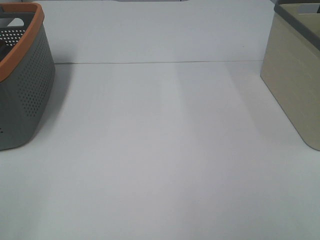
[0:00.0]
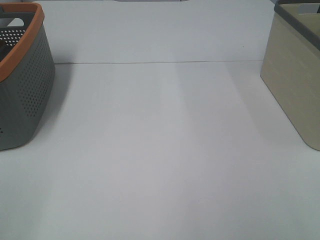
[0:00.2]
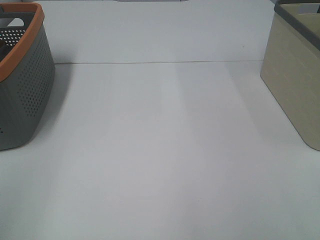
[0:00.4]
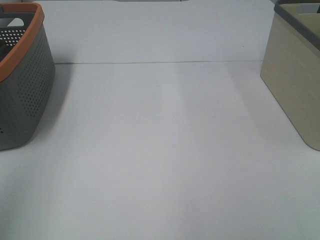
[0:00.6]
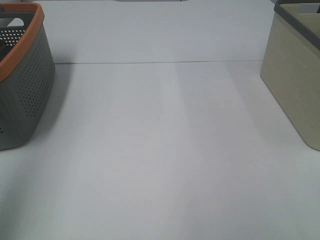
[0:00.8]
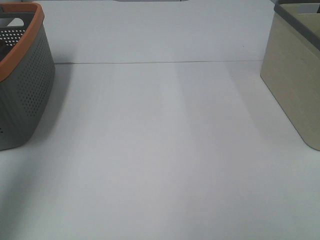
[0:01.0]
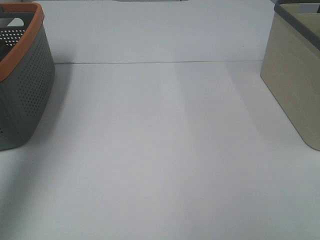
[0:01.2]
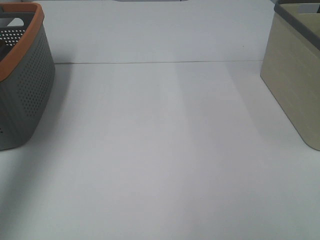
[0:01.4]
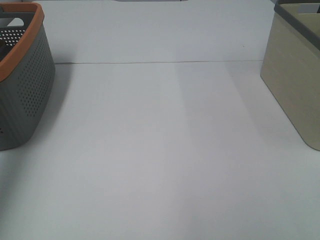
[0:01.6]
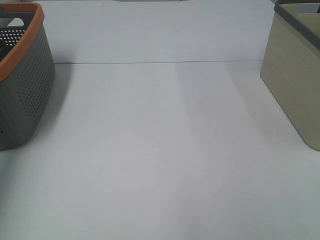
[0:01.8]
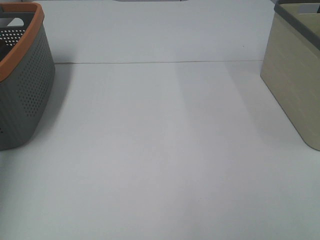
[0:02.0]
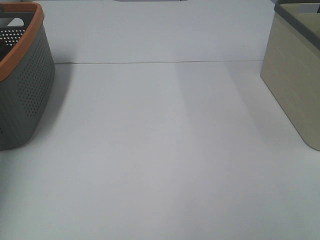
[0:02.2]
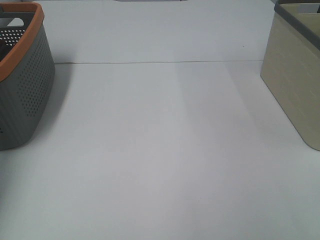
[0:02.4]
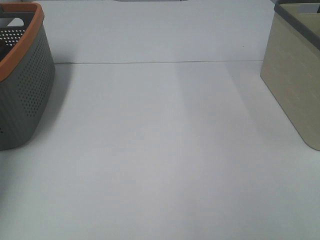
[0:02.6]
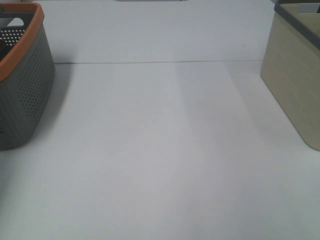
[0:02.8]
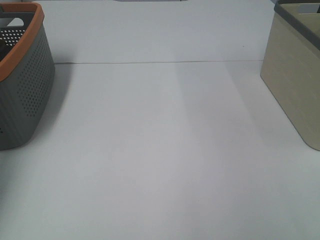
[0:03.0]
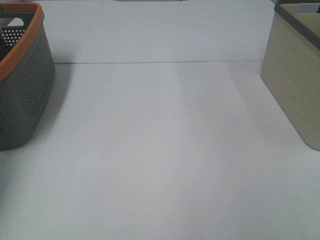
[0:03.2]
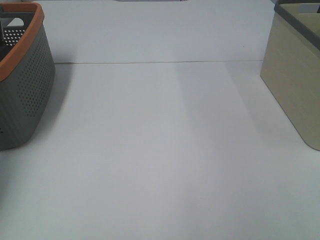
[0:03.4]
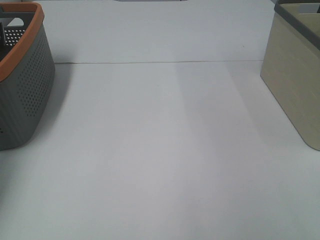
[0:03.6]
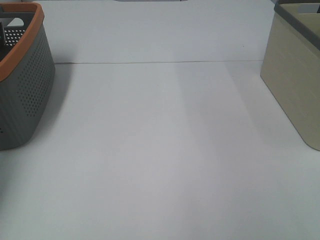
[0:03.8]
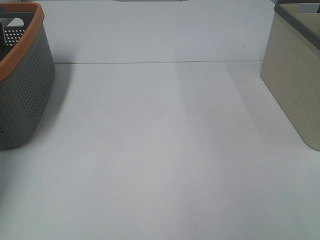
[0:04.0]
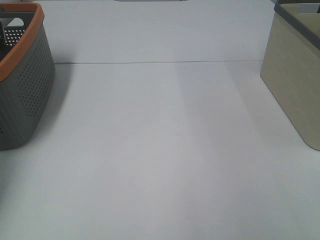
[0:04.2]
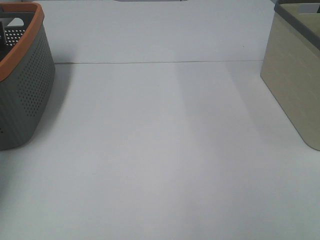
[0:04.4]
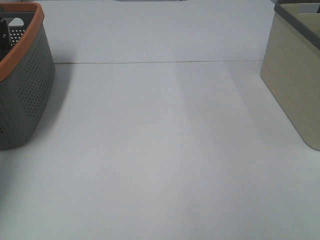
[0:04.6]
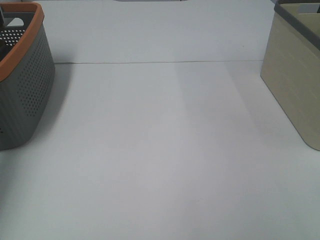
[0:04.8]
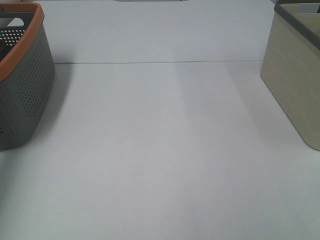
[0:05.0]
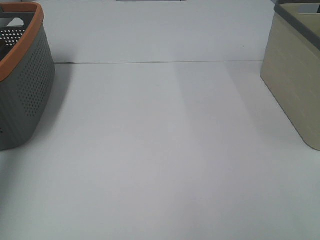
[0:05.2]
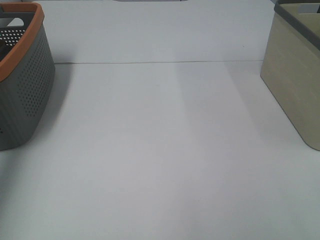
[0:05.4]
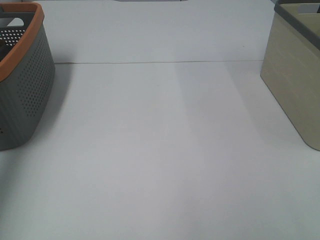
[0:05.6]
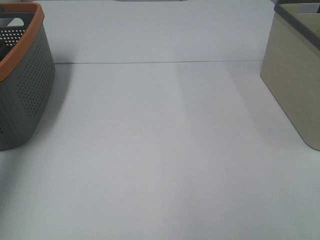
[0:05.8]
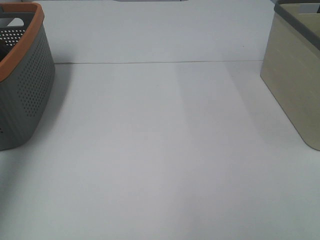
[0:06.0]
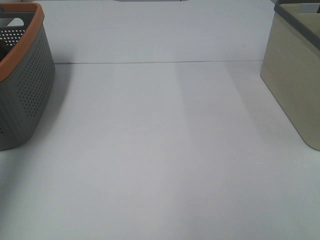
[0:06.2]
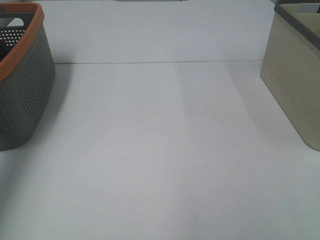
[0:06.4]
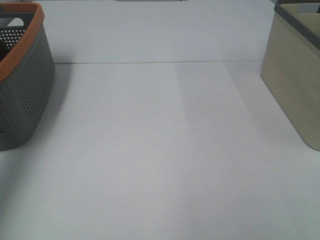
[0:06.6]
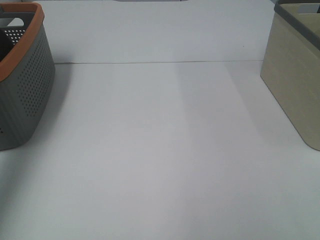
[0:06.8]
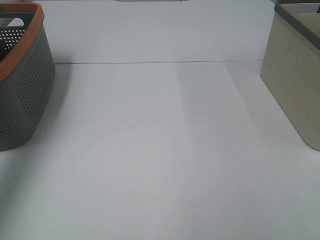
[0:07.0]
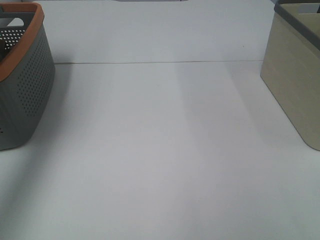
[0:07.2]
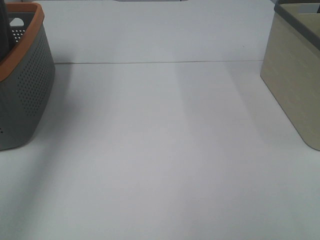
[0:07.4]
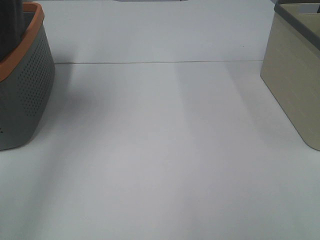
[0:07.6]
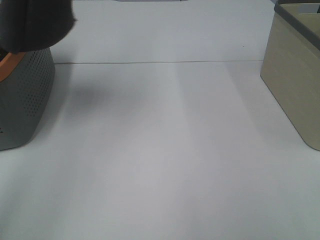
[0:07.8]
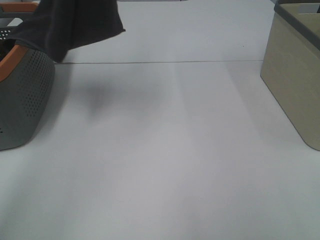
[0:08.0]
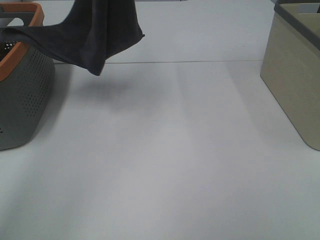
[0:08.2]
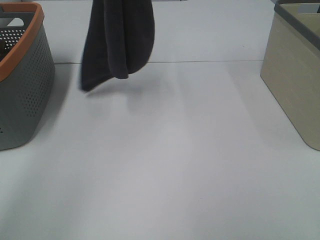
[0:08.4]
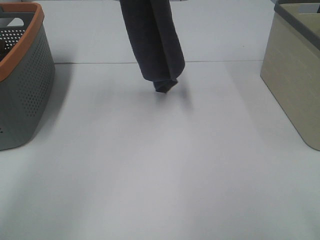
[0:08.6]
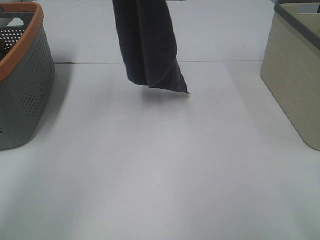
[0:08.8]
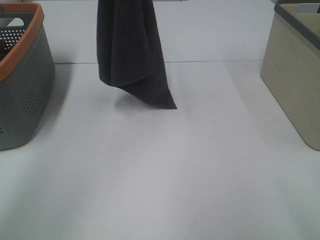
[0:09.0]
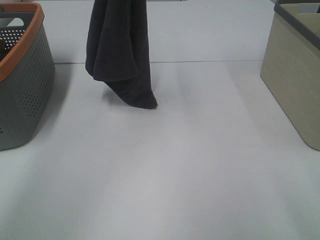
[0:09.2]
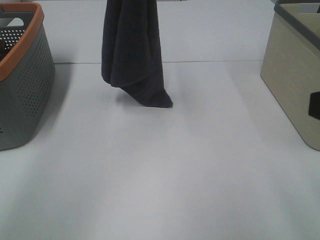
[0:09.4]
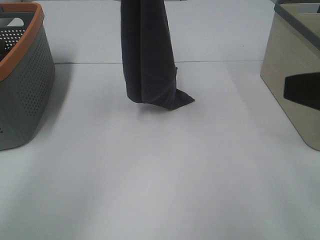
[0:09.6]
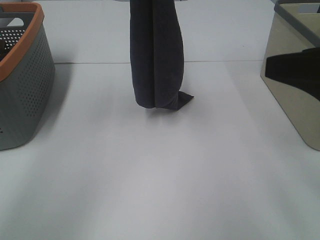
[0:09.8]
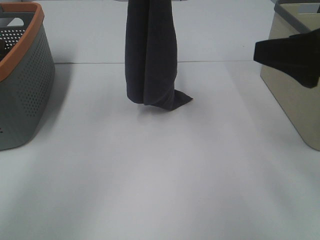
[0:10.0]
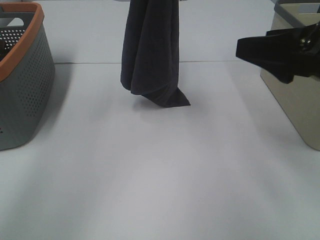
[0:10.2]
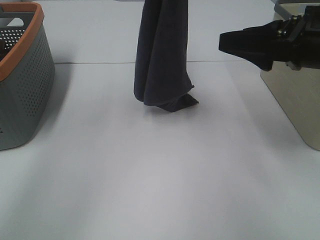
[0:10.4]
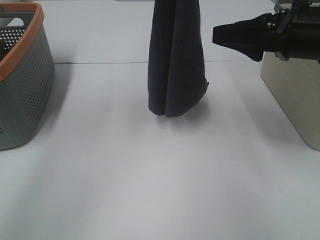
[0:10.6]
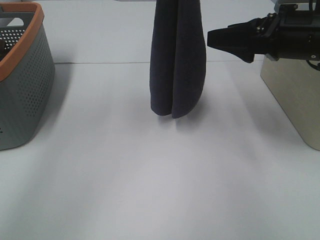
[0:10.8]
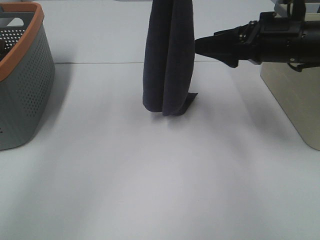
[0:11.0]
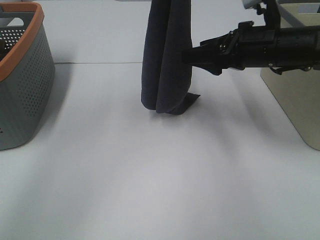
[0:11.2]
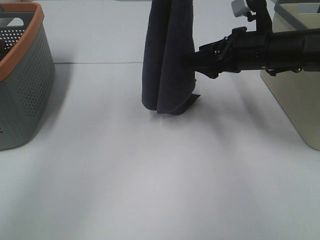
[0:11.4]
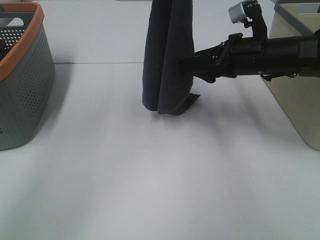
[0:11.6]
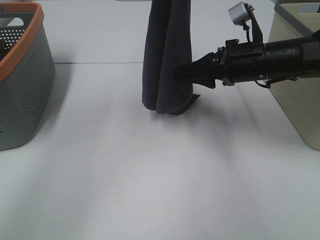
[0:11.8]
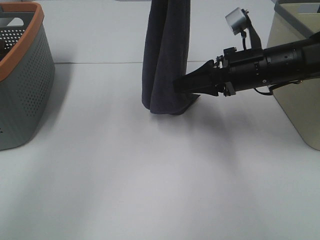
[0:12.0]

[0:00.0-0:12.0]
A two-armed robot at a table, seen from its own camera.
Task of the whole recording: Remove the towel and place it.
0:00.0 to 0:01.6: The left gripper travels forward by roughly 35 cm.
0:04.4 to 0:06.0: The left gripper travels upward and backward by some 25 cm.
0:06.0 to 0:07.6: The left gripper goes some 15 cm to the right and upward.
0:07.6 to 0:09.0: The left gripper is displaced to the right, downward and forward by approximately 15 cm, while the right gripper moves forward, some 5 cm.
0:09.0 to 0:10.4: The right gripper moves forward, approximately 20 cm. Meanwhile the left gripper changes place by roughly 5 cm.
0:10.4 to 0:12.0: The right gripper is displaced downward and forward by some 10 cm.

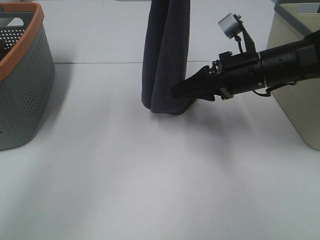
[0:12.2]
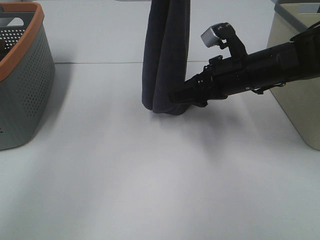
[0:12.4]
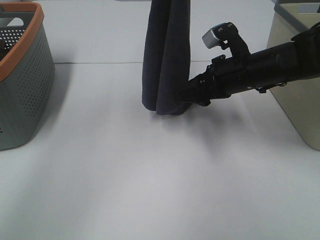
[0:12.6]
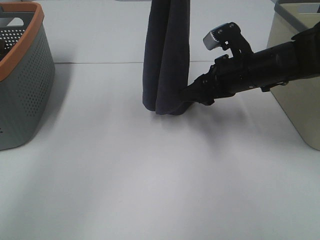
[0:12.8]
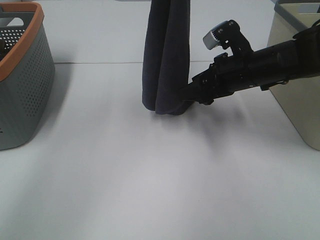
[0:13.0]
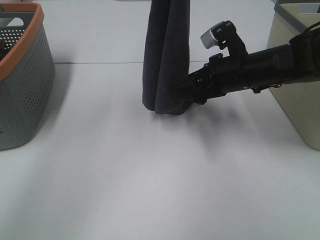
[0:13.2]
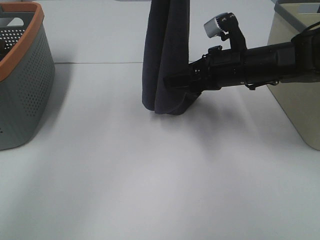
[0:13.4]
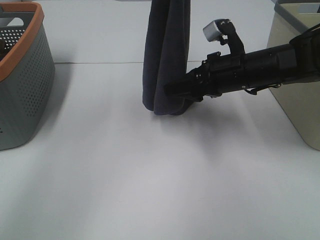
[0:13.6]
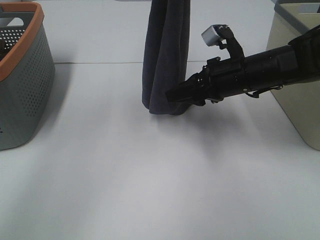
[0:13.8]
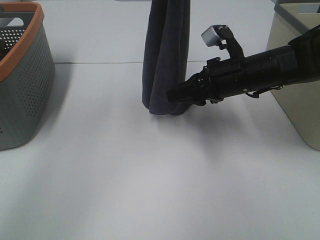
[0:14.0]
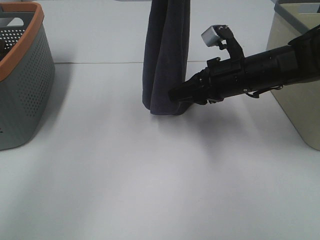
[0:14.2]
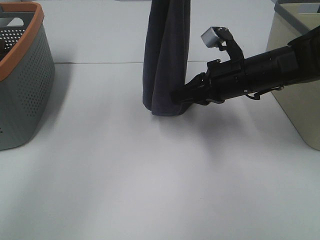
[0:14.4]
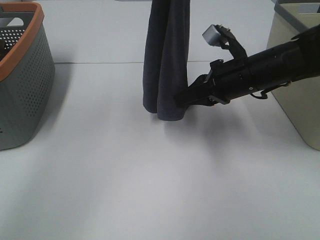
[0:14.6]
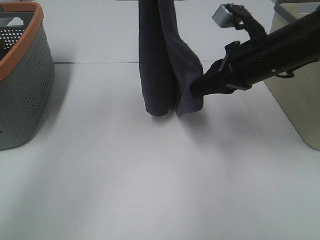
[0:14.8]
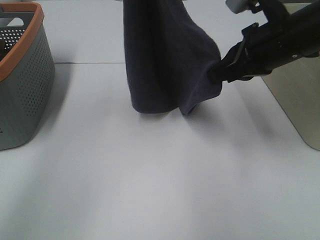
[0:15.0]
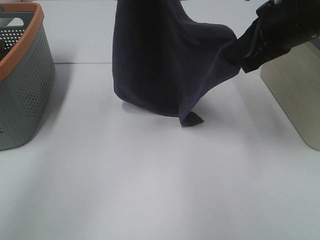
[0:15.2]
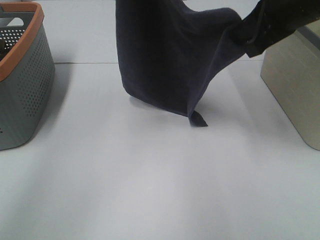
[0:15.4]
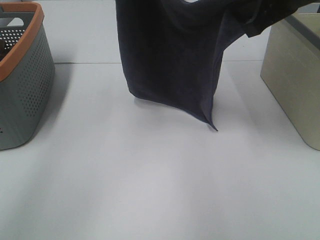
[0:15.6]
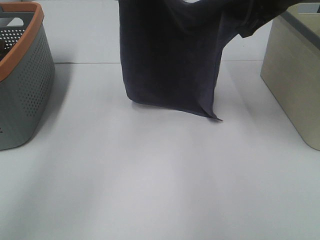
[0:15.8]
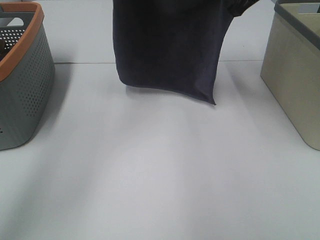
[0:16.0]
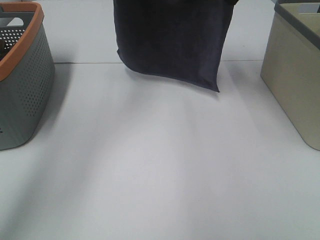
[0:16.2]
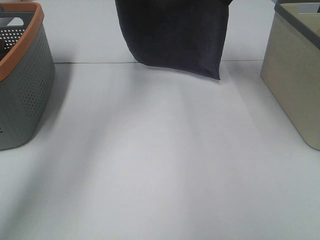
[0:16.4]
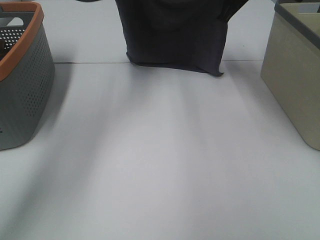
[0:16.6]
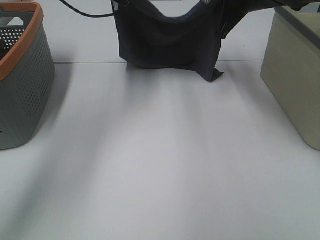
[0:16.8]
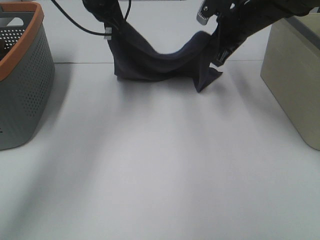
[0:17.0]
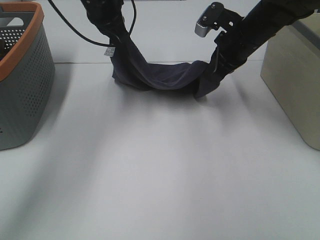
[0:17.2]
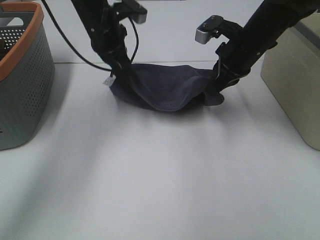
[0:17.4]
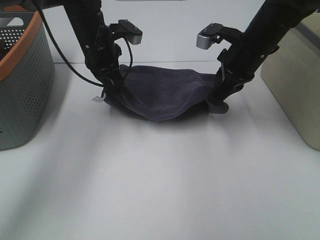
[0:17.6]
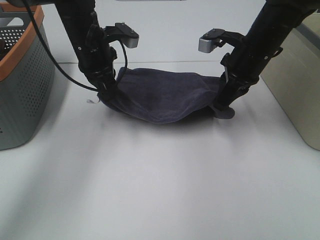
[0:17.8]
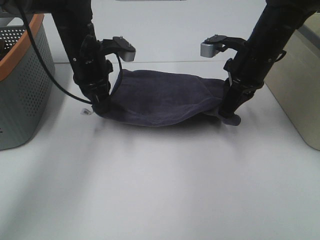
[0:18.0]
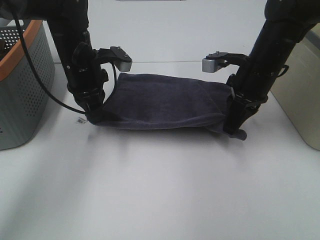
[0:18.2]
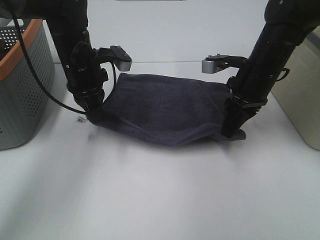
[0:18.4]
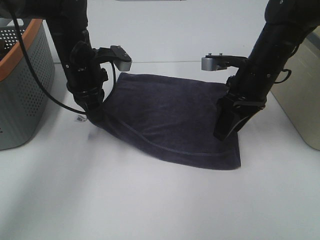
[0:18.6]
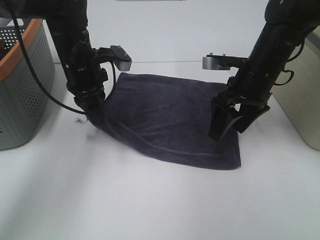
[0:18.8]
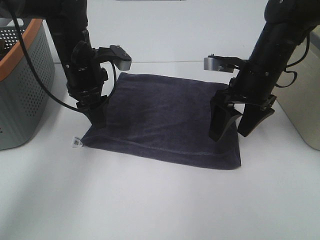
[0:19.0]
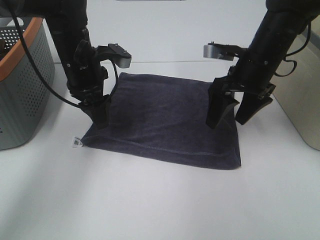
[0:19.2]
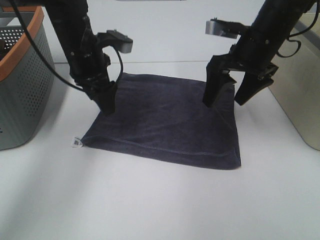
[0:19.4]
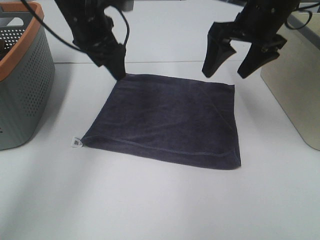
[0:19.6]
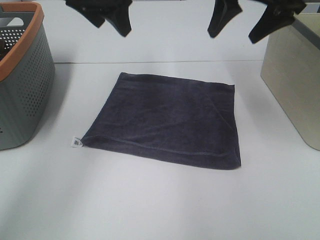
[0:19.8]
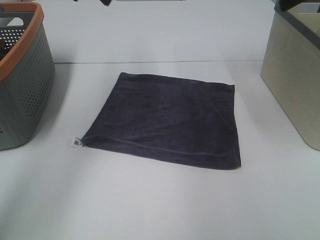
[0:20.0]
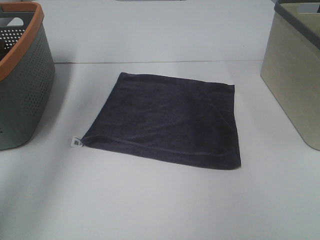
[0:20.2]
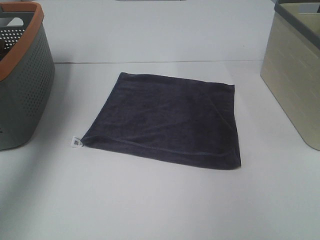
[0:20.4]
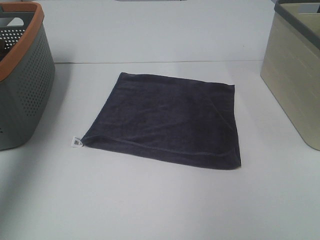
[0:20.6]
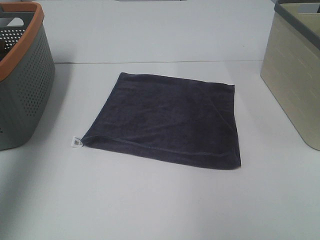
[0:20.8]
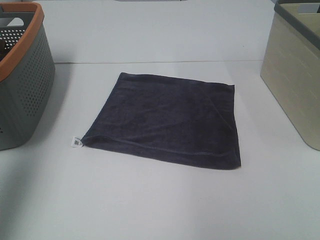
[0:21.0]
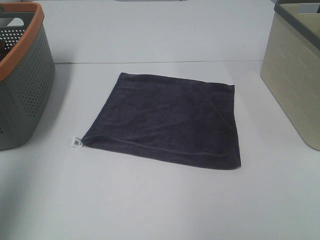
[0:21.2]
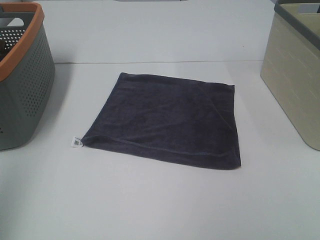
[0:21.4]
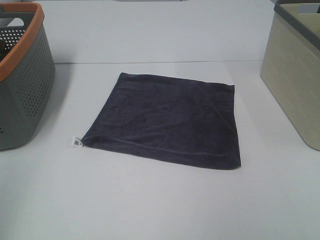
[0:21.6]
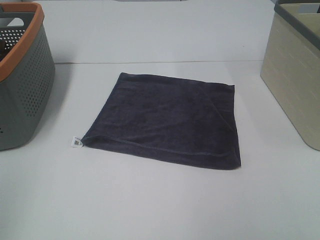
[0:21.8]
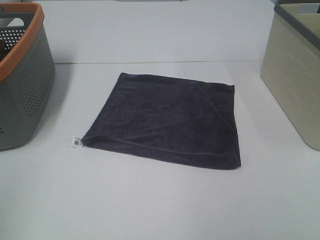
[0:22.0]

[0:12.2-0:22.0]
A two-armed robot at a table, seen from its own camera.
Task of the whole recording: Remove the towel and place it.
Step, 0:12.4 to 0:14.0: Right hand: spread the grey towel flat on the table.
0:13.6 to 0:15.0: The right gripper moves upward, roughly 10 cm, and closes.
0:15.0 to 0:16.4: The right gripper goes approximately 15 cm forward, while the left gripper shifts roughly 15 cm forward and downward.
0:16.4 to 0:17.8: Both grippers move downward and backward, some 15 cm.
0:17.8 to 0:19.2: The right gripper opens up, while the left gripper opens.
0:19.2 to 0:20.6: The right gripper is displaced upward, to the right and backward by roughly 30 cm, while the left gripper shifts about 35 cm upward and to the left.
0:20.6 to 0:22.0: The left gripper moves backward, approximately 30 cm.
